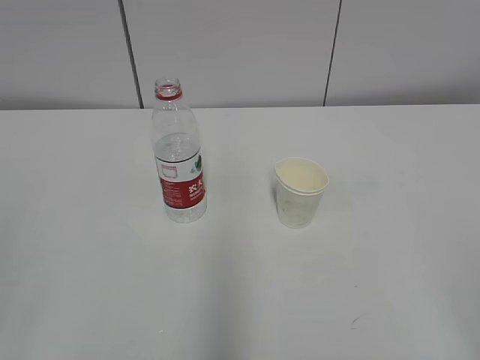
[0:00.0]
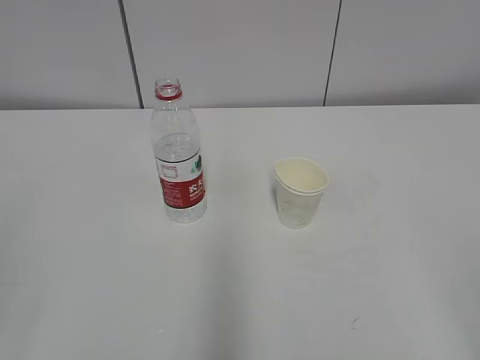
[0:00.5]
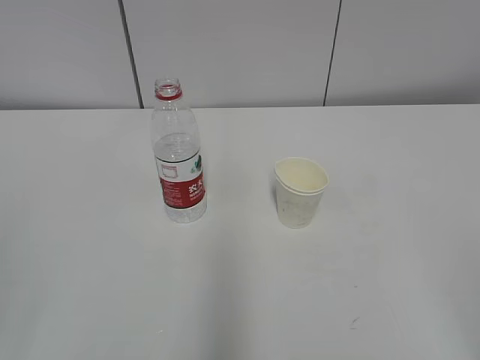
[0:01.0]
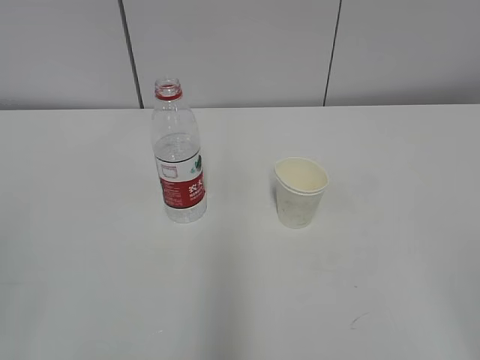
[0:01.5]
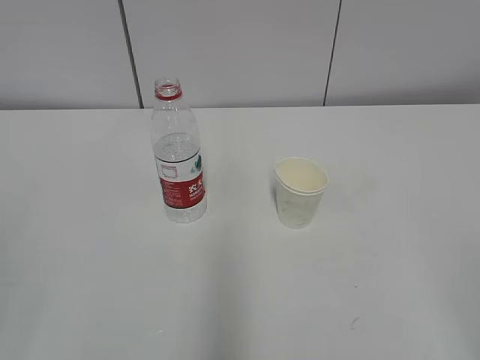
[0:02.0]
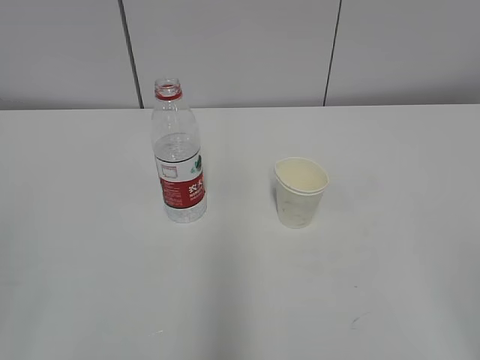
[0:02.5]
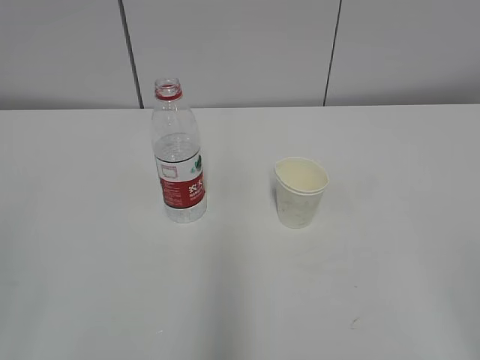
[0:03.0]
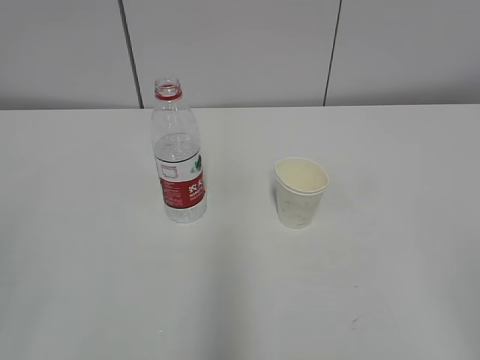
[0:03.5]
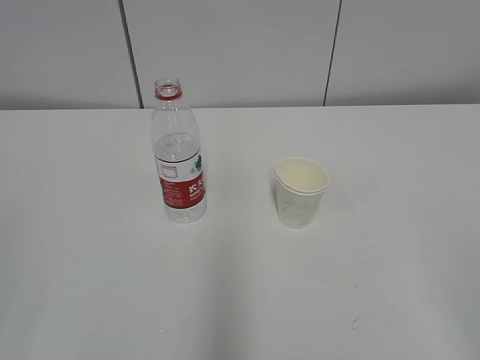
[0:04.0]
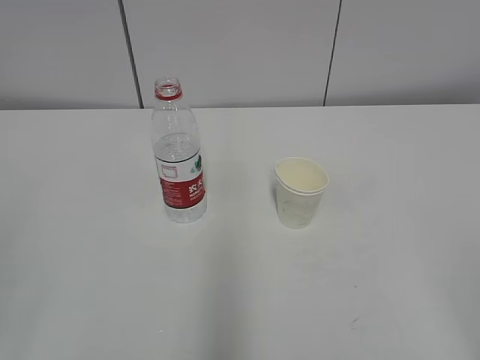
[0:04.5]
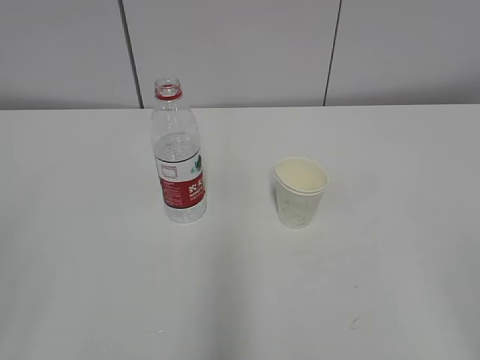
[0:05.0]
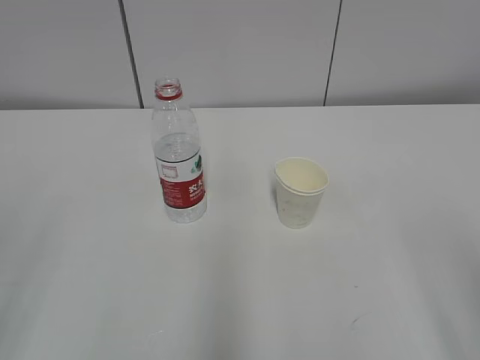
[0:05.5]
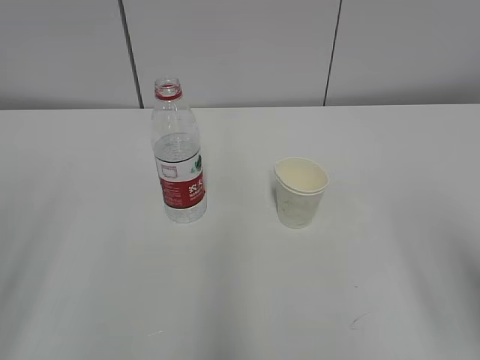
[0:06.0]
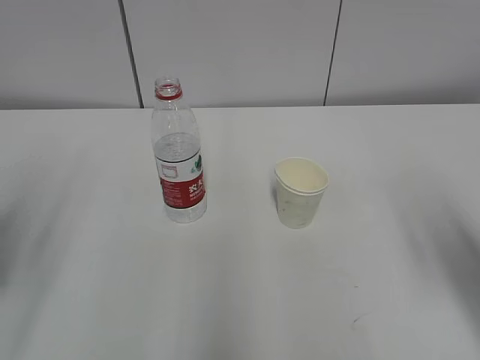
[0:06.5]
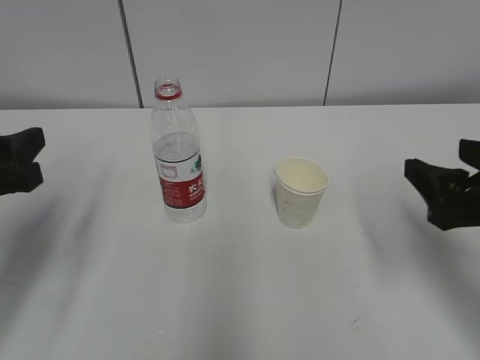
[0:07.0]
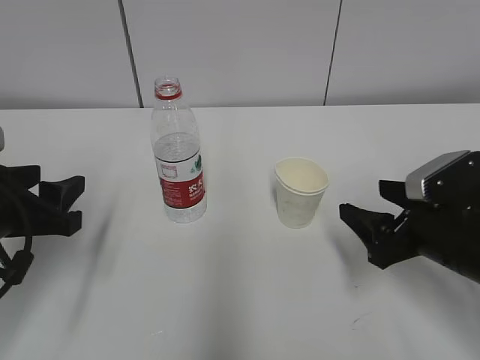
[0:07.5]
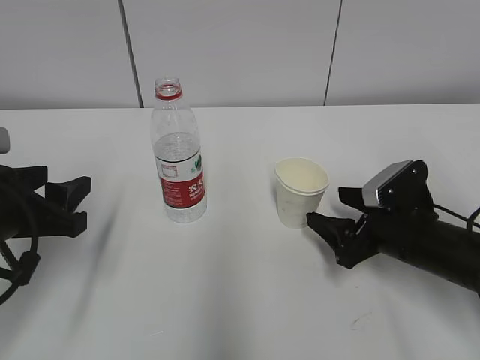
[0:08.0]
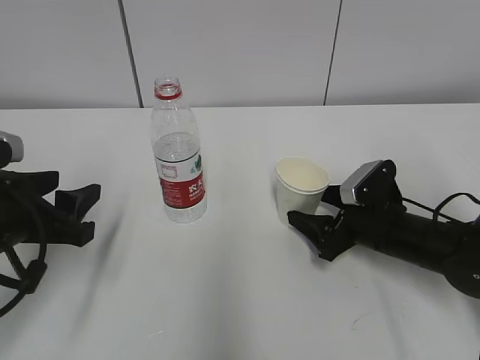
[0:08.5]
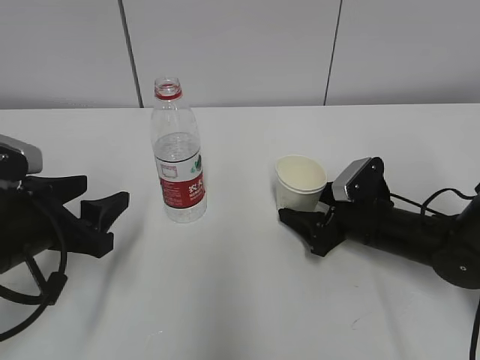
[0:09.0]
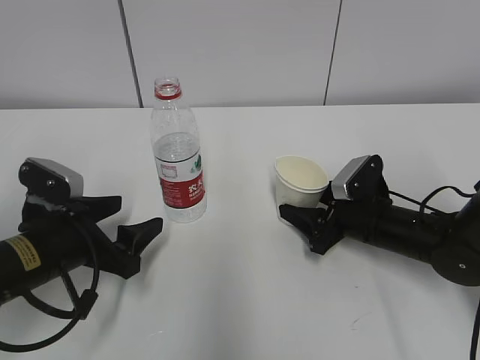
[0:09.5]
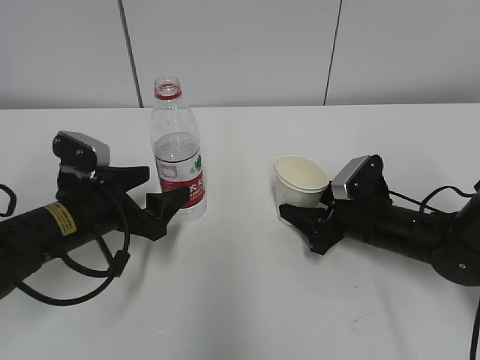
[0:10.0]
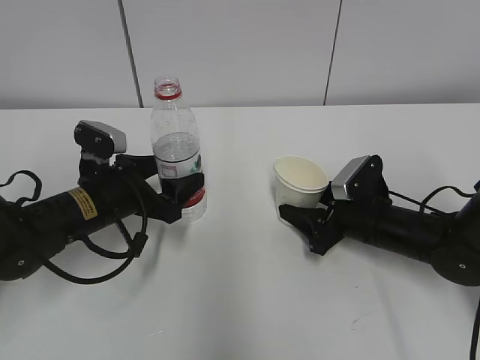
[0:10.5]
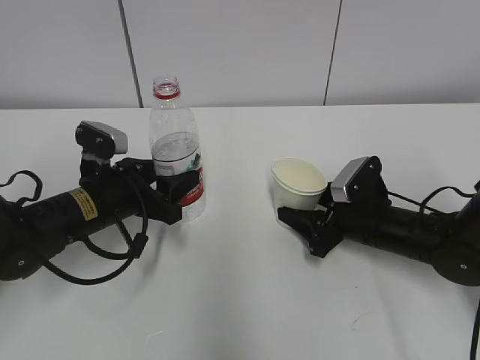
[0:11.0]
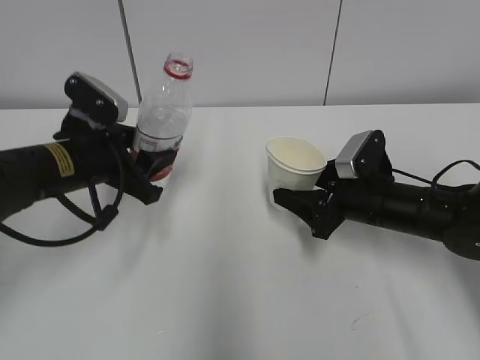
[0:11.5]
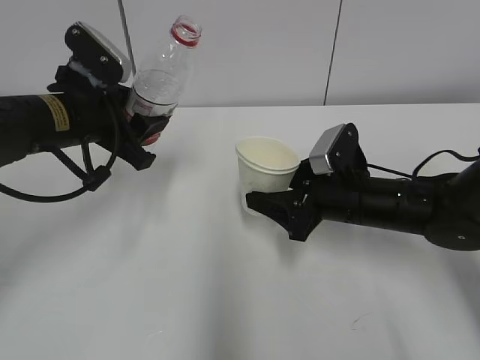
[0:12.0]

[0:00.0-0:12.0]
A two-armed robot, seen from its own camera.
Step, 0:00.0 to 0:09.0: Grasp the paper cup with the right gripper.
Step, 0:09.5 to 0:11.0: Grasp the bottle with the left gripper.
0:02.0 to 0:04.0: Neither gripper changes place.
0:06.0 to 0:08.0: The grippers both shift forward and downward by roughly 25 cm.
0:08.0 to 0:10.0: The right gripper moves forward, roughly 5 cm, and closes, while the left gripper moves forward, downward and to the right, about 10 cm, and opens.
0:10.0 to 0:12.0: The right gripper travels upward by roughly 5 cm. Meanwhile the left gripper is displaced upward by about 10 cm, and closes its fingers.

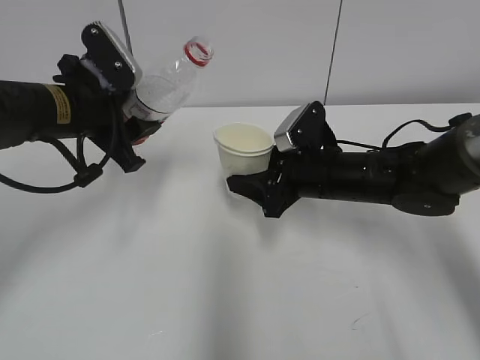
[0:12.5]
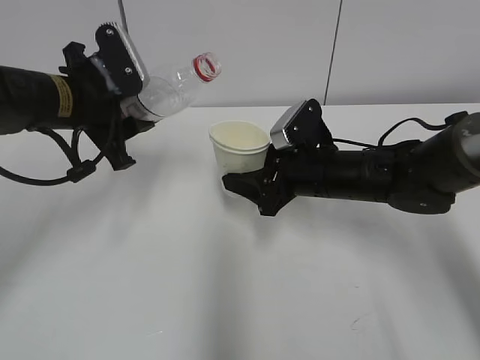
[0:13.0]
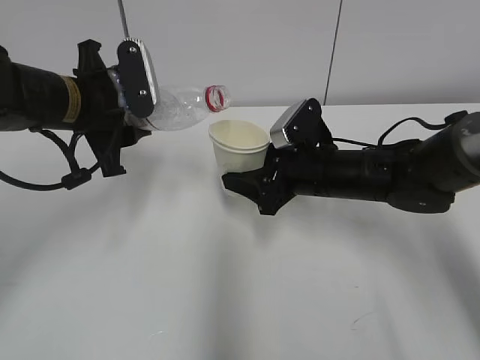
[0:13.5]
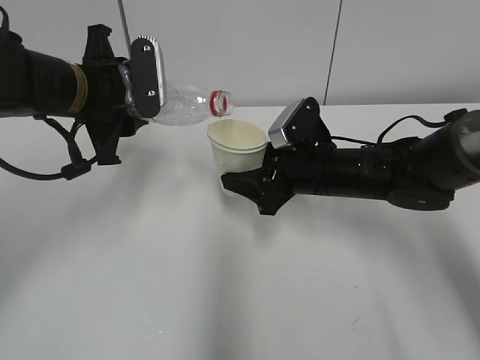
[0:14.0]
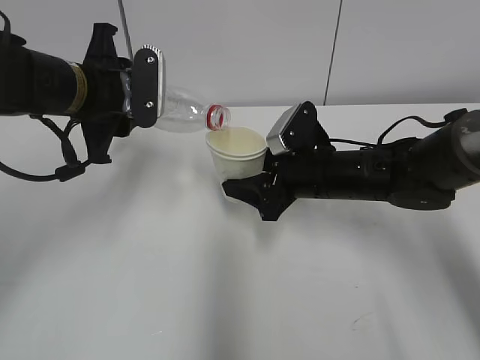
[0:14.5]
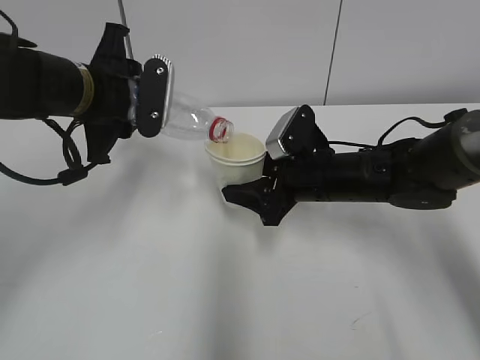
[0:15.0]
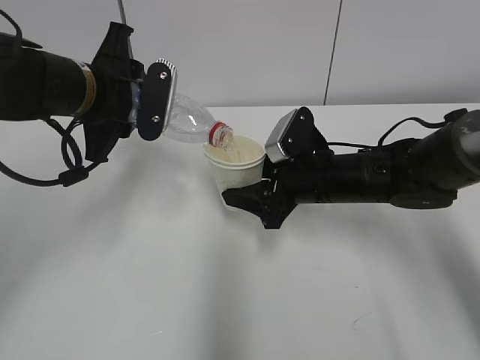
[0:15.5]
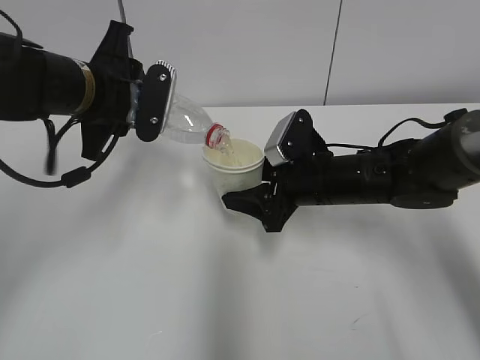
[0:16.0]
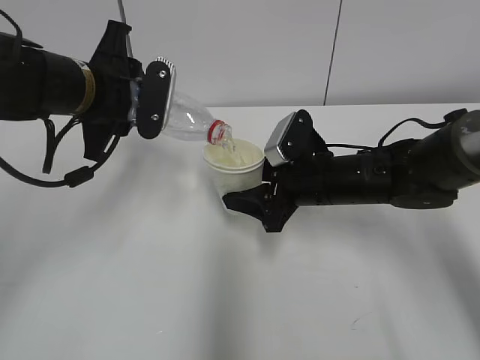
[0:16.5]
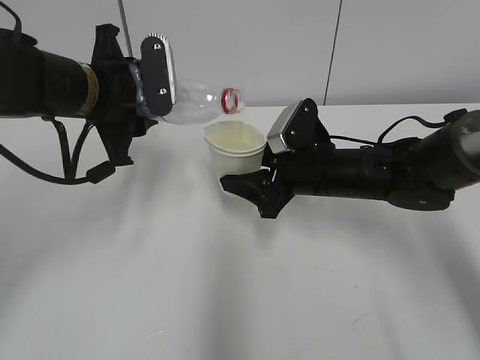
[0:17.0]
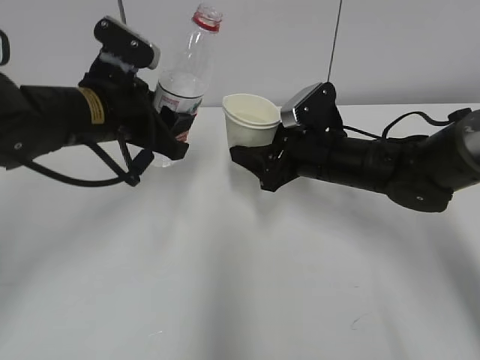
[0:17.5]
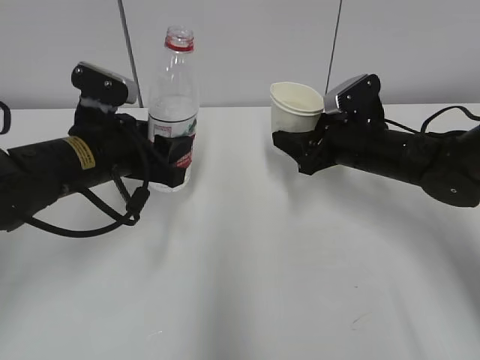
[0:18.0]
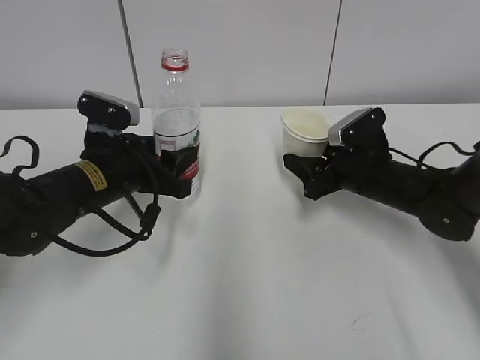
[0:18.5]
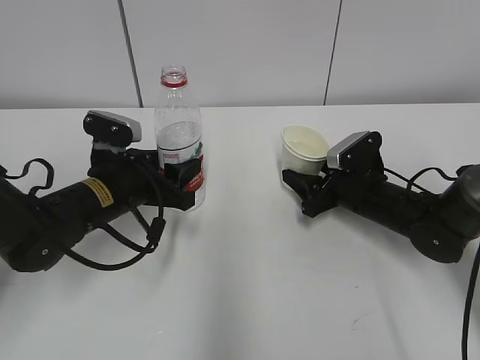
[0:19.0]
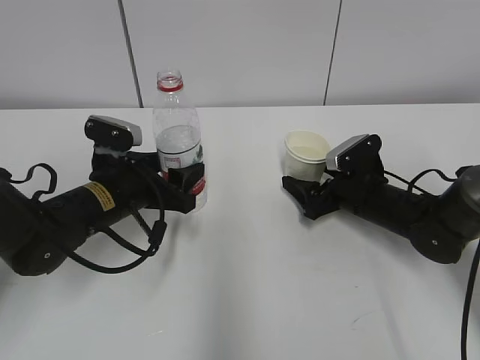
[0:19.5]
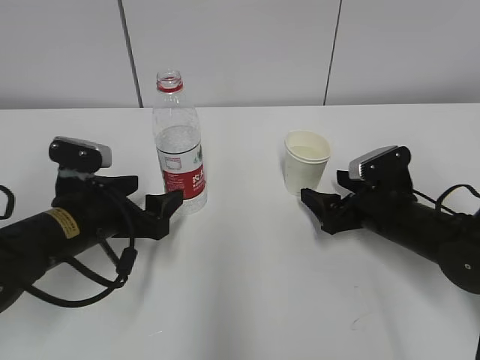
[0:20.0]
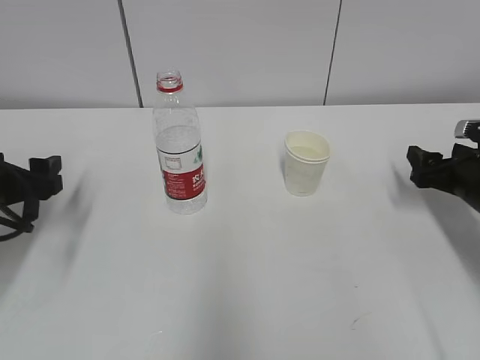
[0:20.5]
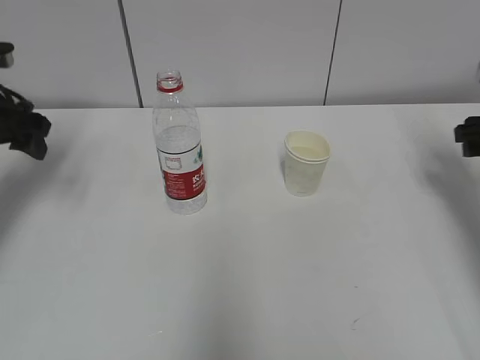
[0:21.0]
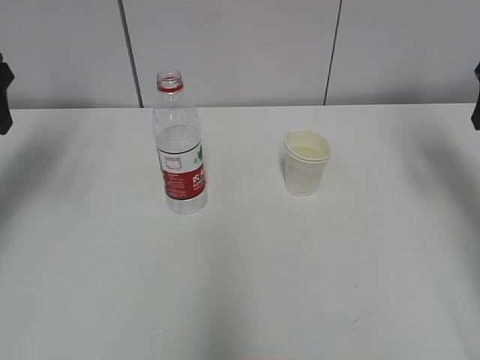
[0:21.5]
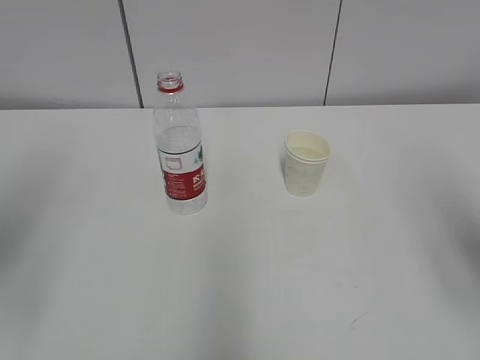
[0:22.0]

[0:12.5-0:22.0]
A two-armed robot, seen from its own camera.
Step, 0:12.5 to 0:17.0: Pour water from bottle to cup with the left gripper.
Step, 0:17.5 to 0:19.5: Place the bottle with the left gripper.
Step, 0:17.5 to 0:19.5: Place the paper cup with the right gripper.
0:14.5 to 0:16.5: The grippers make only small movements.
0:16.5 to 0:18.0: The right gripper is displaced to the right by roughly 5 cm, while the left gripper heads downward, covering approximately 5 cm.
0:18.0 to 0:20.0: The right gripper heads downward and backward, covering some 10 cm, and opens up. Meanwhile the left gripper travels downward by roughly 5 cm, and opens its fingers.
0:20.0 to 0:22.0: The left gripper moves upward, to the left and backward, about 25 cm; the right gripper shifts some 30 cm upward and backward, and closes.
